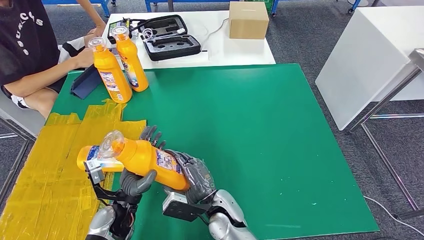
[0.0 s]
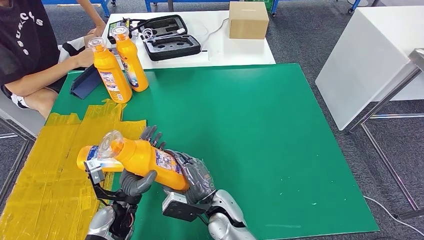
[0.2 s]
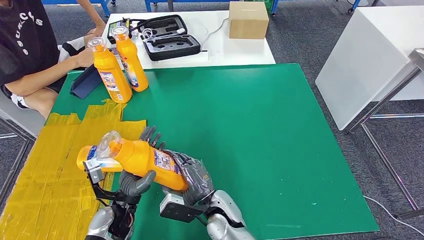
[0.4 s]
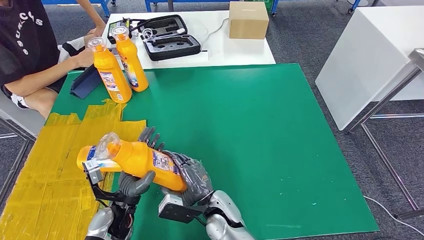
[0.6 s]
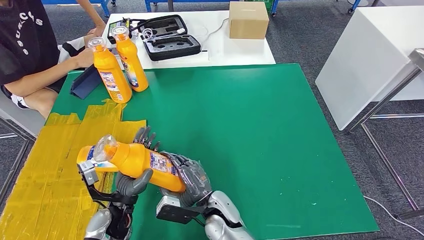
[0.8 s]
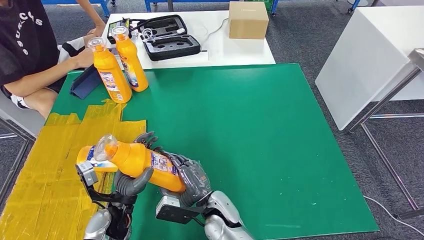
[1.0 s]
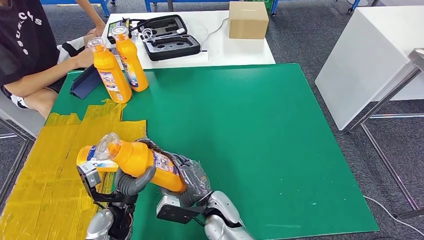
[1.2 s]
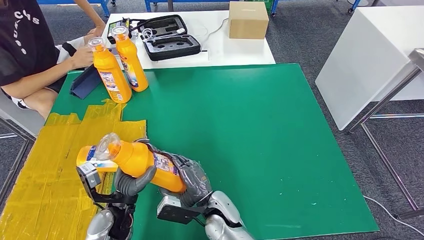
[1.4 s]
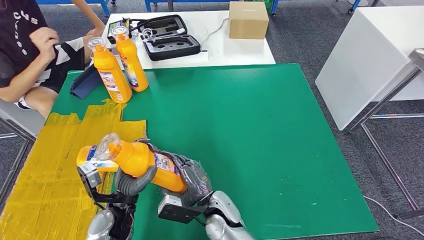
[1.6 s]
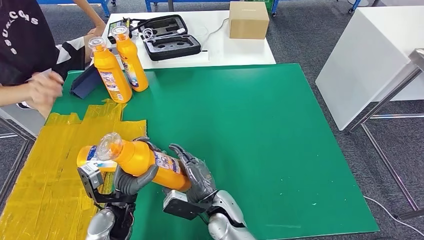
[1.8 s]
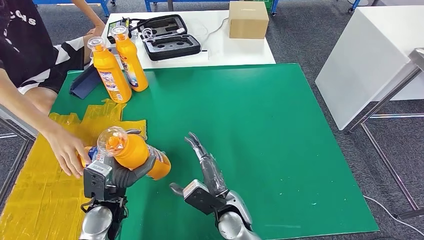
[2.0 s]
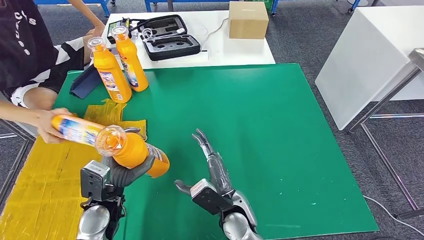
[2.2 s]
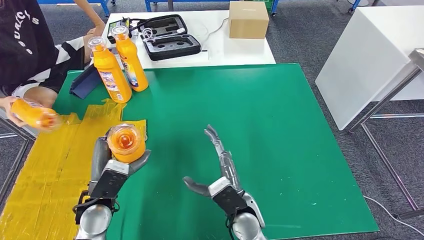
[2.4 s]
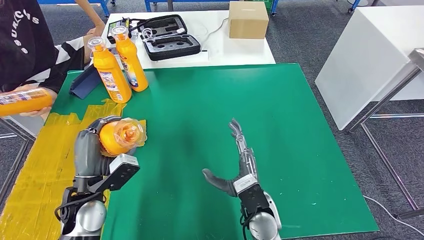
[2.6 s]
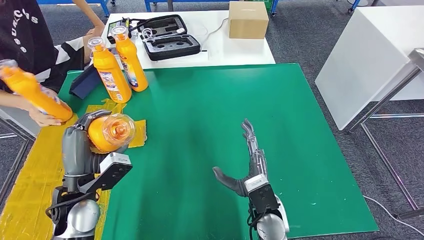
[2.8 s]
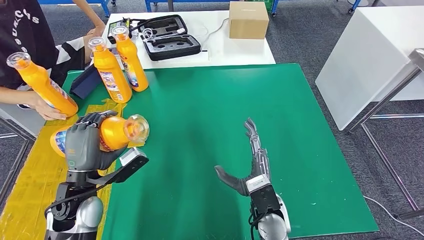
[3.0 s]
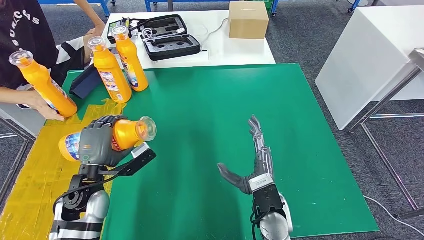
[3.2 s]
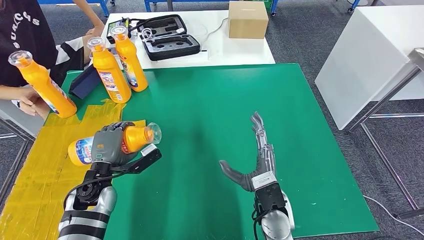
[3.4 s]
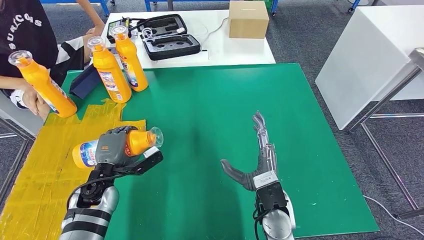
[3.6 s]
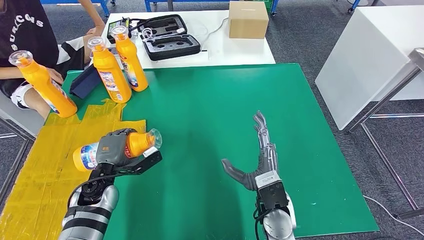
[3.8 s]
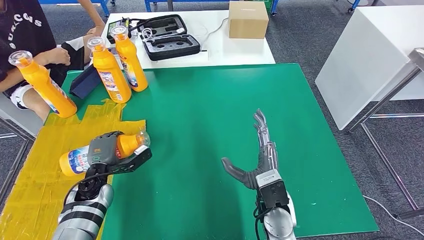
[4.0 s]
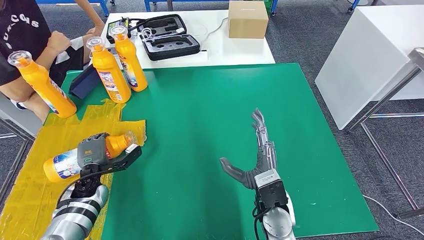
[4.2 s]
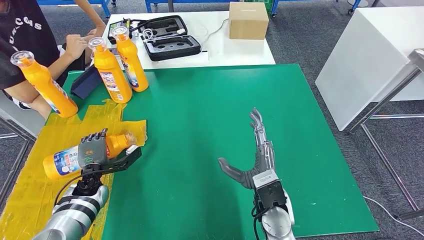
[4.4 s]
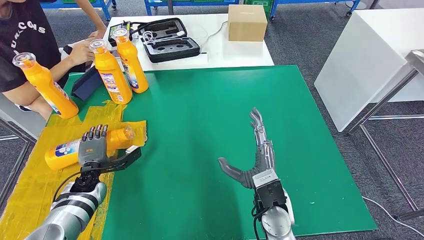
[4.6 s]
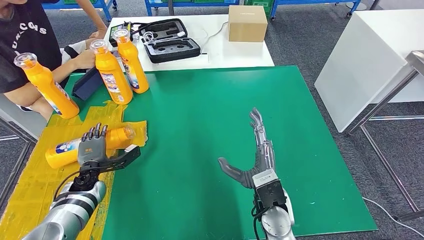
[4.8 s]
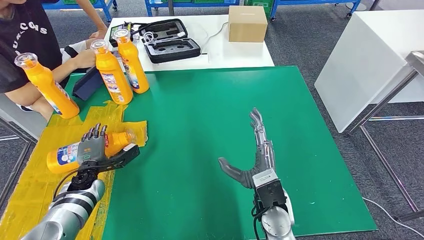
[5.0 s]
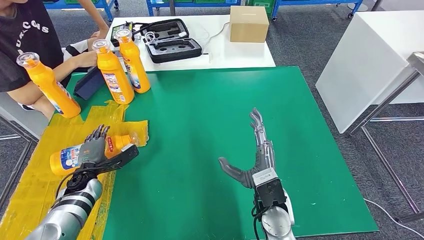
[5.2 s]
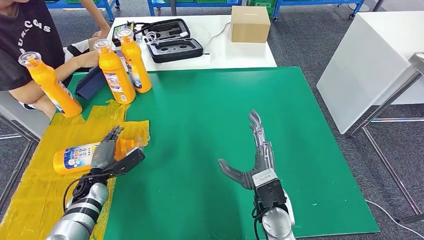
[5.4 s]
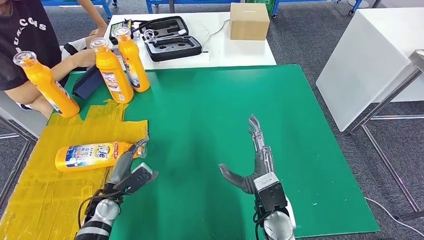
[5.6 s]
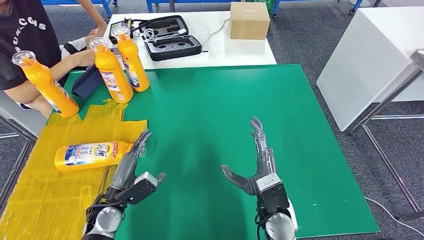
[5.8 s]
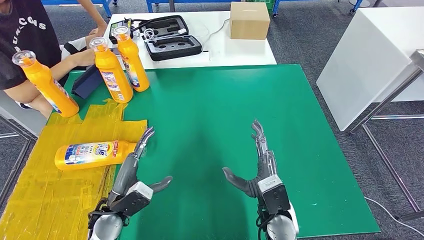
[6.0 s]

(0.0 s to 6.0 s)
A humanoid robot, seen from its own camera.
Step, 0.0 s - 6.0 s: Flip the fast-moving consumer goods bottle to the front side.
0.0 s - 1.6 s: The hands stay close to where they were, moving slightly.
1.6 s - 3.0 s: The left hand travels upward and to the left by some 10 cm; the right hand goes about 10 cm to the right and upward.
3.0 s - 4.4 s: The left hand is displaced downward, forward and to the left by roughly 15 cm.
4.4 s - 6.0 s: The left hand travels to the right, backward and upward by approximately 15 cm.

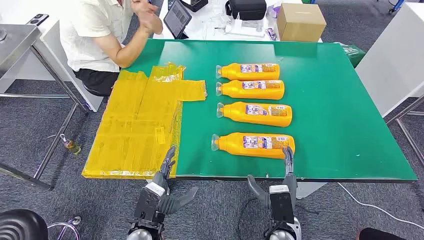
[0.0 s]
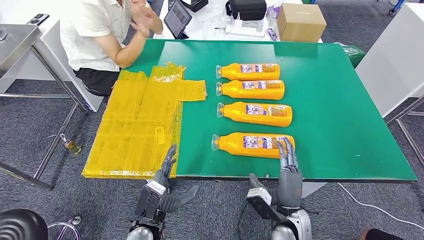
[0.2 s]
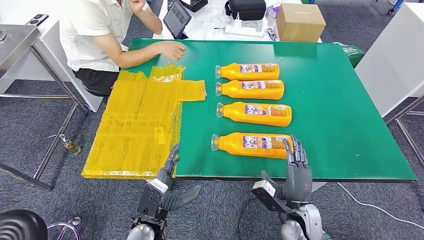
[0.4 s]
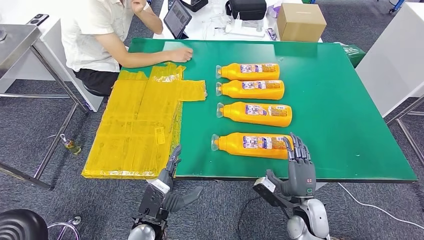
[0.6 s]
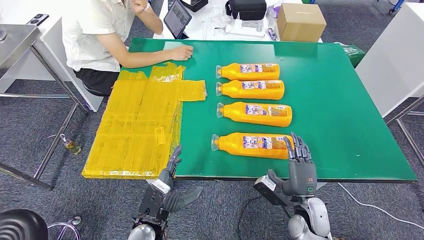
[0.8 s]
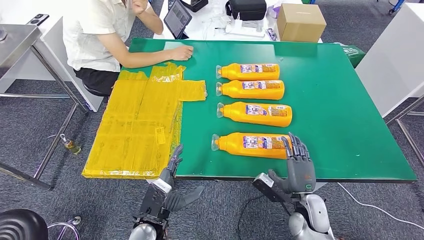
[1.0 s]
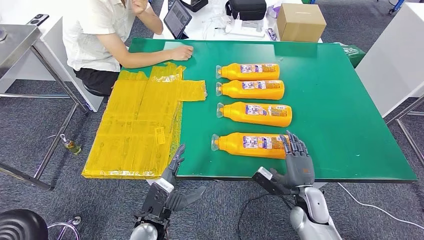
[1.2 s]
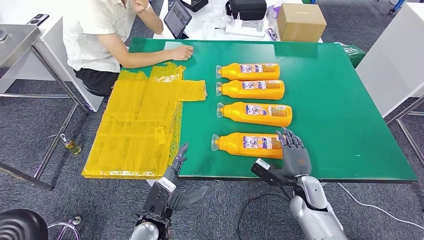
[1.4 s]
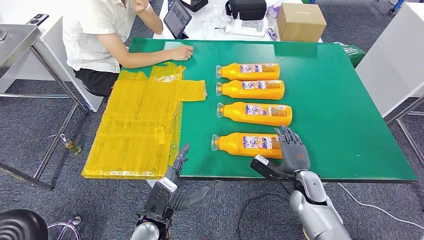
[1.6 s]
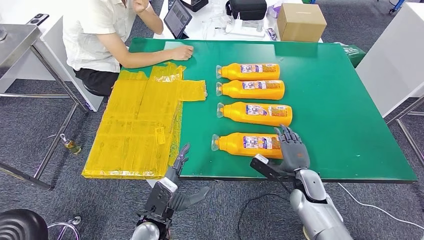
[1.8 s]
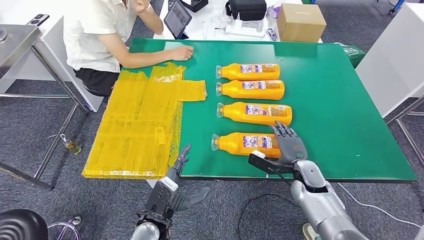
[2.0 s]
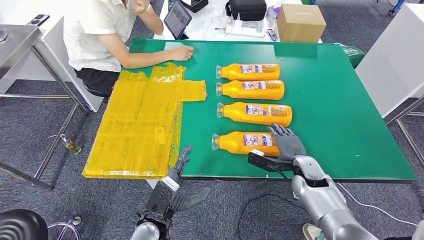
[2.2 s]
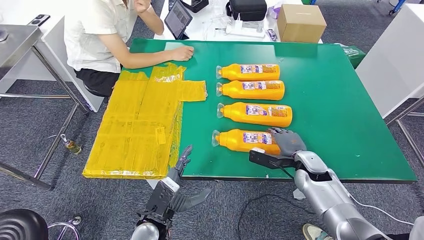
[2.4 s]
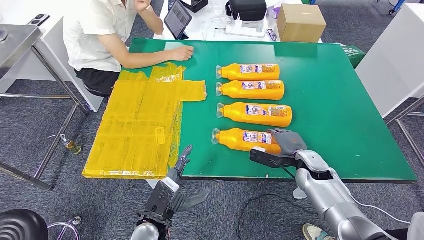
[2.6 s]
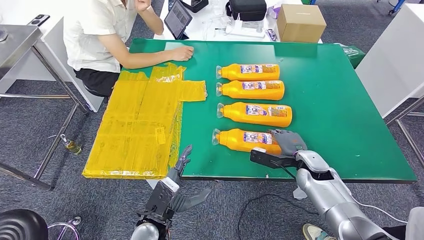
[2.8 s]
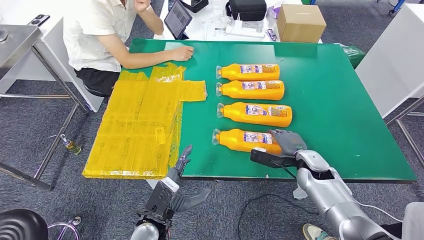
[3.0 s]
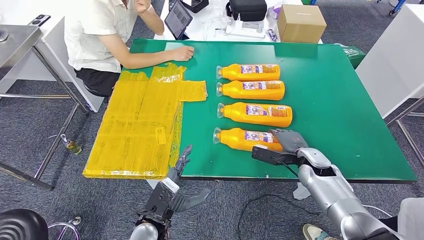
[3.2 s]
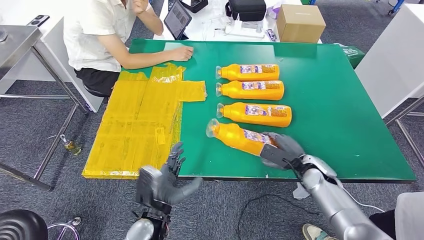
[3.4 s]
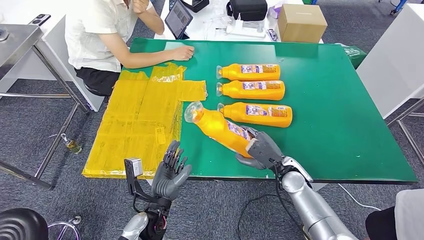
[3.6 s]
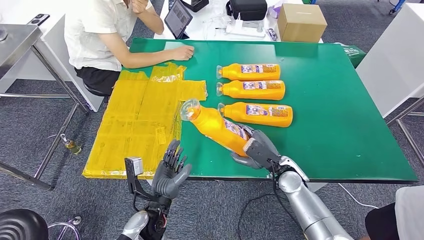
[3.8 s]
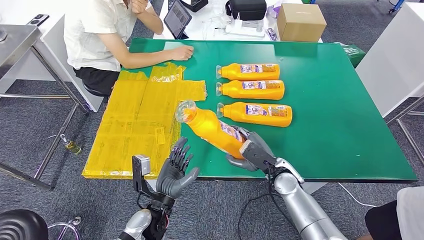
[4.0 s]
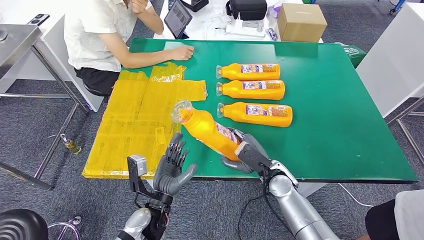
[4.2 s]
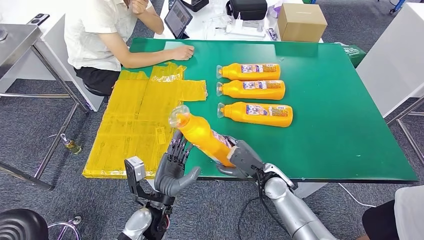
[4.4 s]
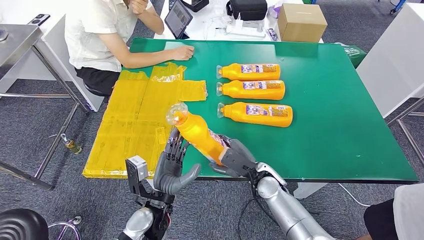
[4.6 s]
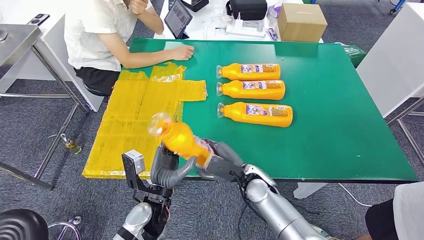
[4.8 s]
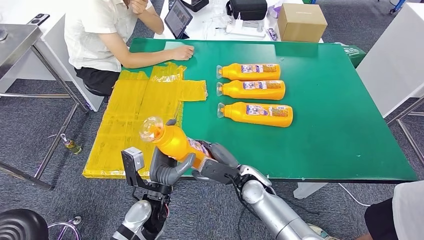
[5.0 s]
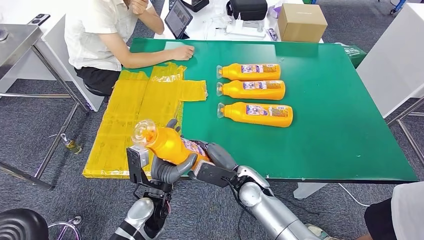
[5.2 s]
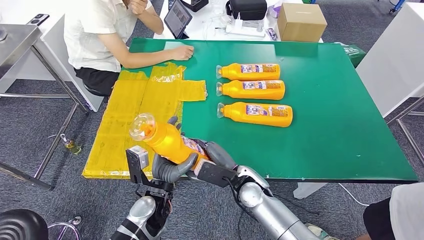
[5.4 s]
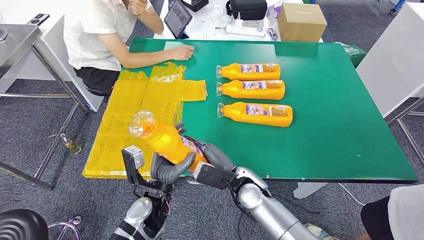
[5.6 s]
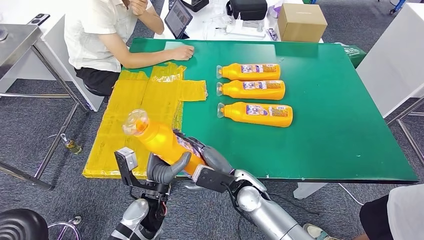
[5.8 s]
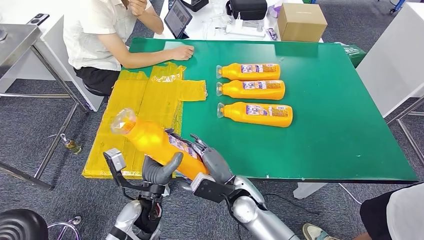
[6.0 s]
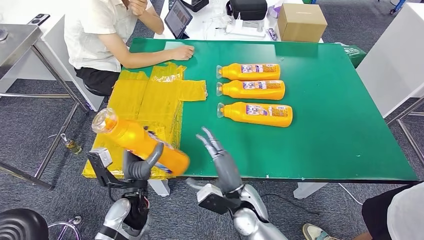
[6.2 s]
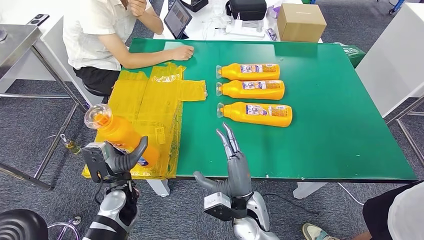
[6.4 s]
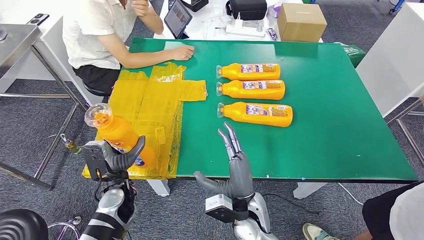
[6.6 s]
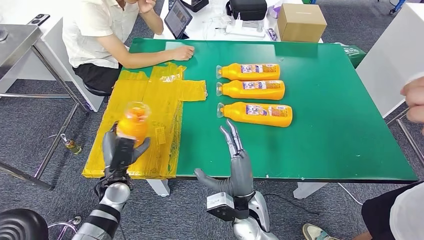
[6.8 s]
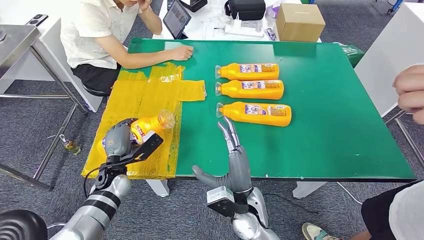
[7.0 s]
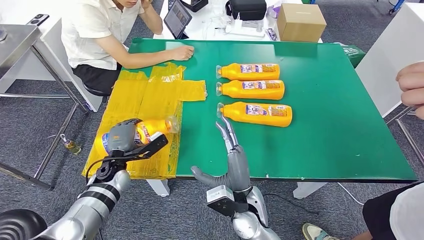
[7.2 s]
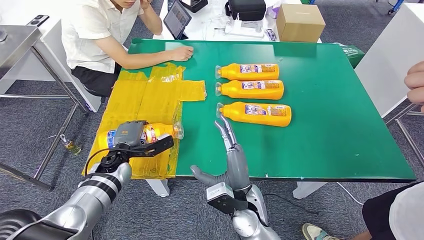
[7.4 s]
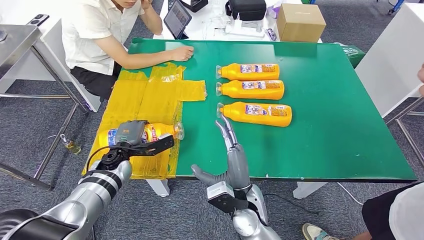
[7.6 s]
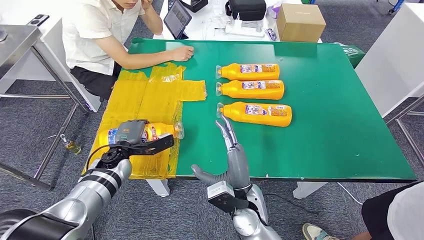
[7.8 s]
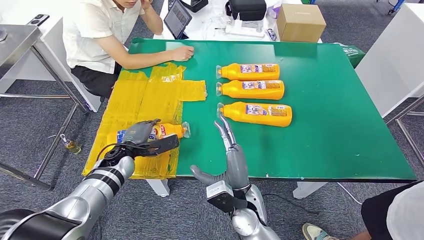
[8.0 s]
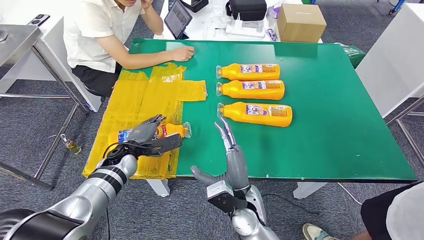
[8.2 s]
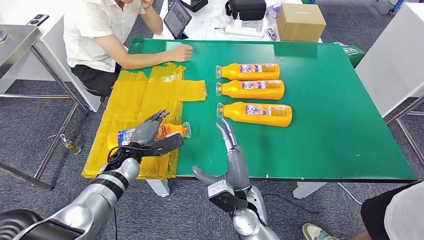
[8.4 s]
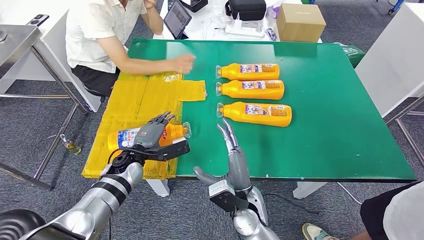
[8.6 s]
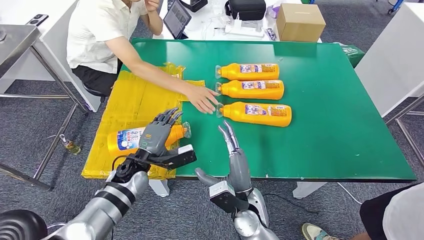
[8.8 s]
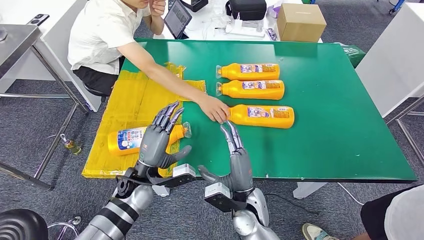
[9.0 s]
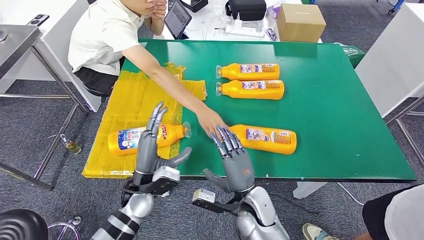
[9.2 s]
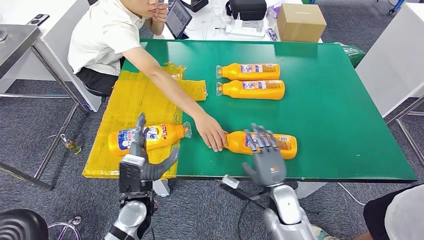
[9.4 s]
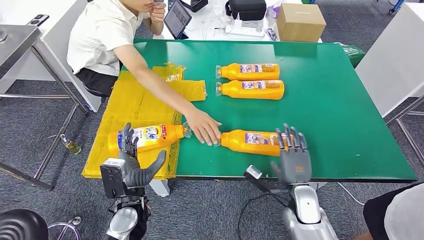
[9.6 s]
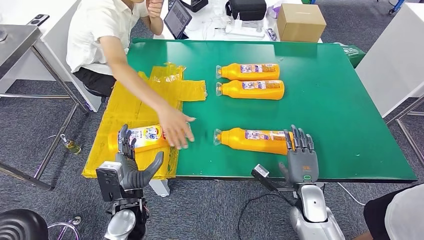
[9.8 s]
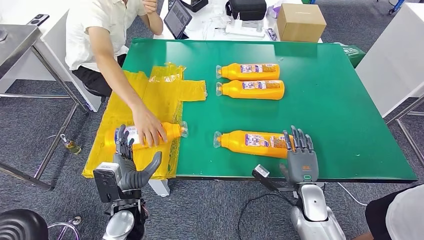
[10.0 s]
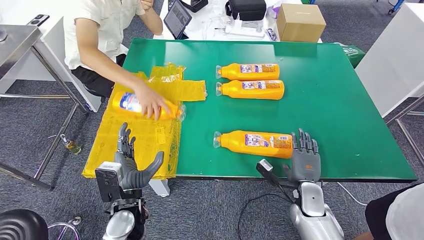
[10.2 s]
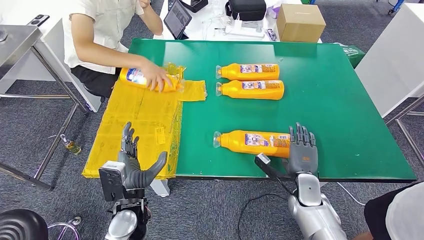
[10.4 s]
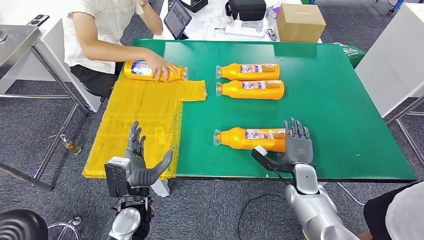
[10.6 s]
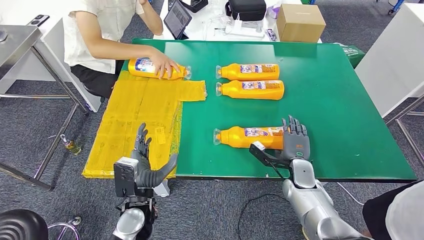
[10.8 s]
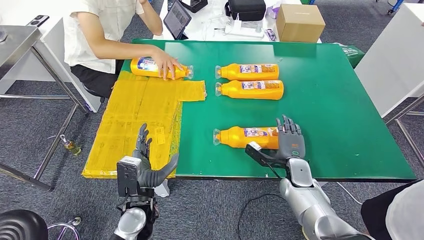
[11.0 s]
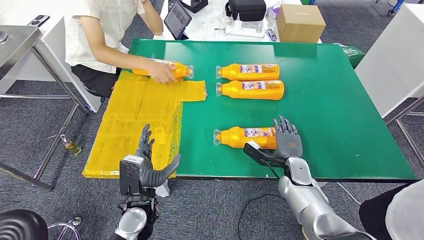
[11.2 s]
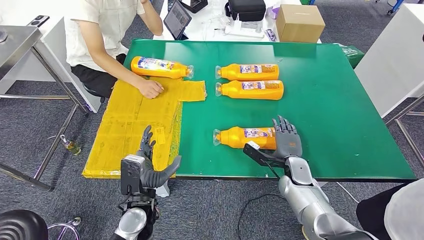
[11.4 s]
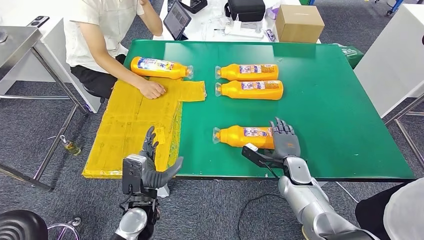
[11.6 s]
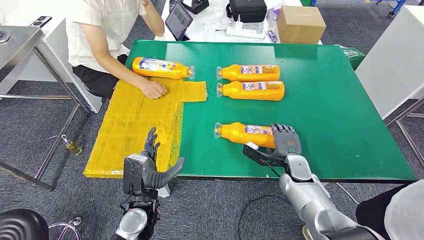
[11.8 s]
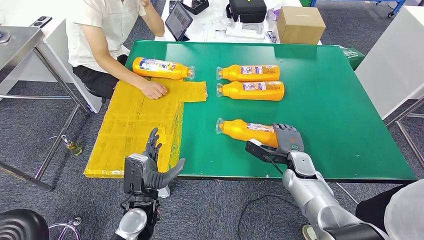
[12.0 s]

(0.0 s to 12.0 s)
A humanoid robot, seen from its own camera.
Step, 0.0 s - 4.2 s: Take the fast-moving consumer goods bottle from the table.
Step, 4.4 s - 9.4 s: Flip the fast-moving consumer goods bottle to the front side.
1.6 s - 3.0 s: The right hand changes place by approximately 5 cm.
3.0 s - 4.4 s: The right hand goes some 10 cm to the left.
4.4 s - 6.0 s: The right hand travels to the left and backward by approximately 10 cm.
6.0 s - 7.6 s: The left hand heads forward and to the left, covering approximately 20 cm.
